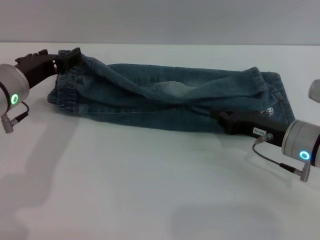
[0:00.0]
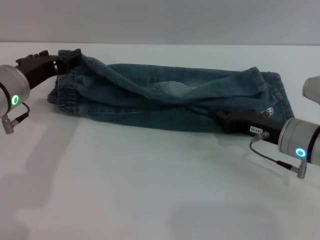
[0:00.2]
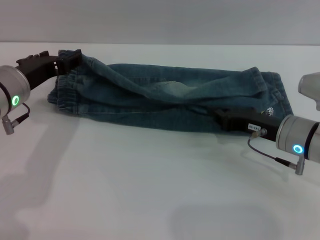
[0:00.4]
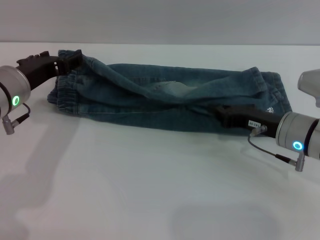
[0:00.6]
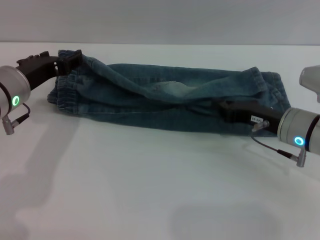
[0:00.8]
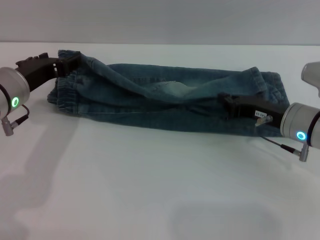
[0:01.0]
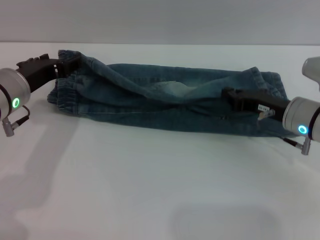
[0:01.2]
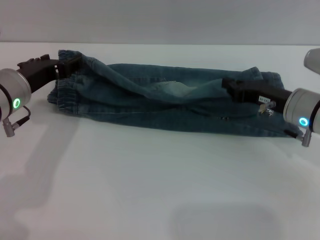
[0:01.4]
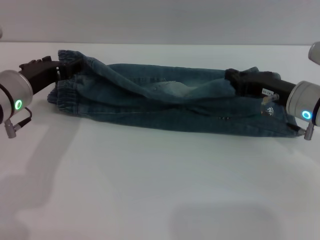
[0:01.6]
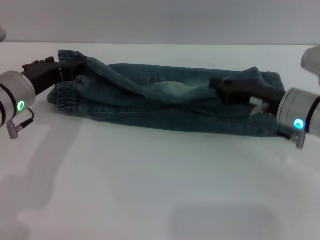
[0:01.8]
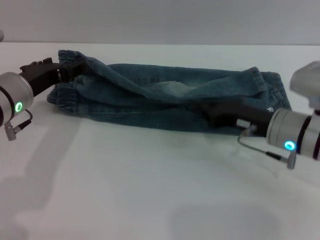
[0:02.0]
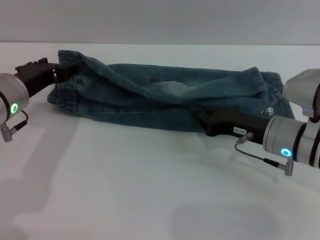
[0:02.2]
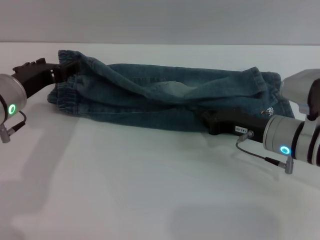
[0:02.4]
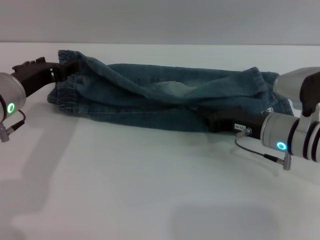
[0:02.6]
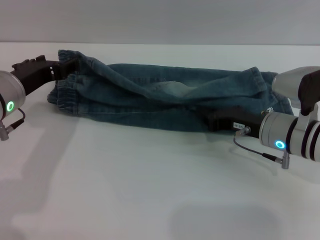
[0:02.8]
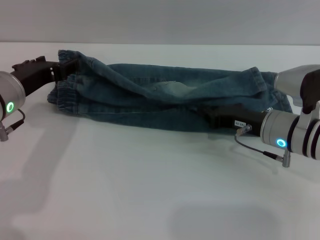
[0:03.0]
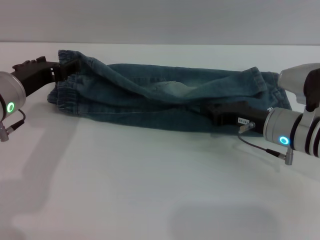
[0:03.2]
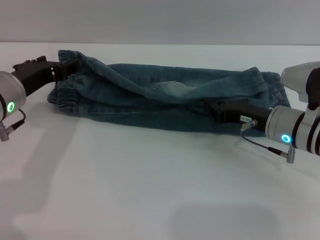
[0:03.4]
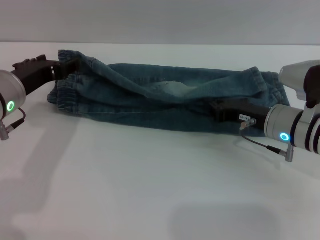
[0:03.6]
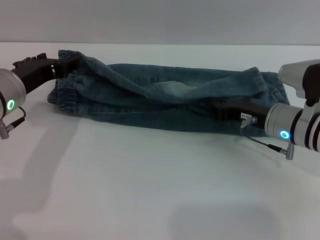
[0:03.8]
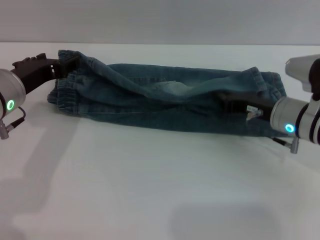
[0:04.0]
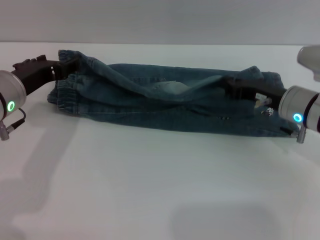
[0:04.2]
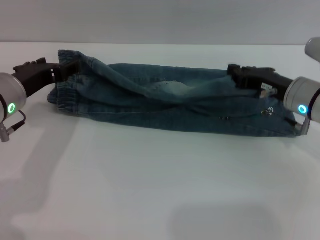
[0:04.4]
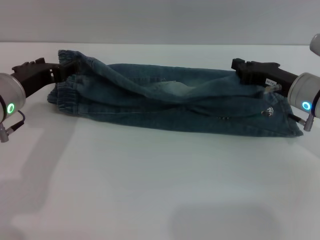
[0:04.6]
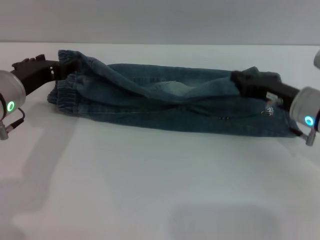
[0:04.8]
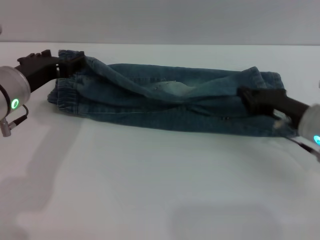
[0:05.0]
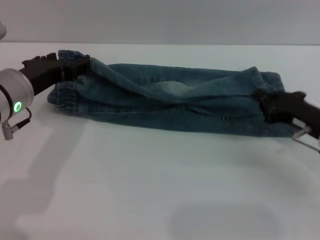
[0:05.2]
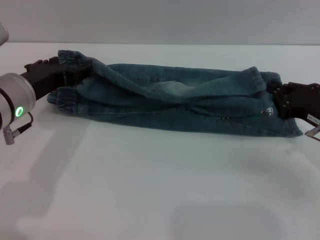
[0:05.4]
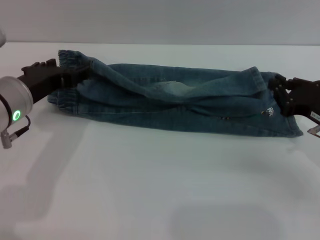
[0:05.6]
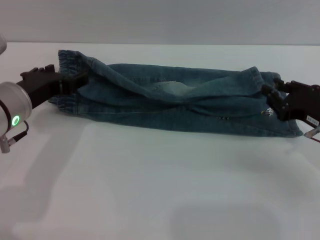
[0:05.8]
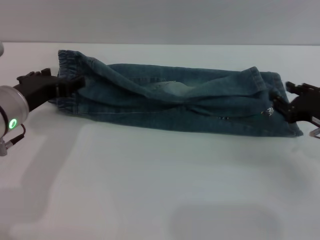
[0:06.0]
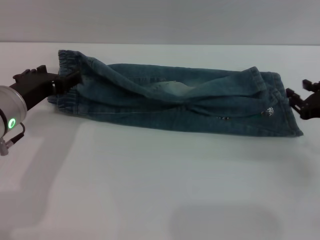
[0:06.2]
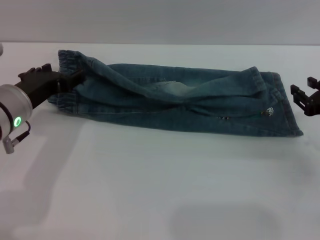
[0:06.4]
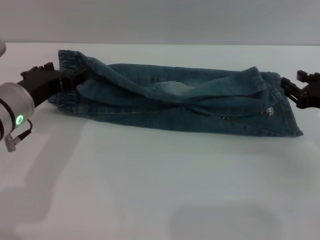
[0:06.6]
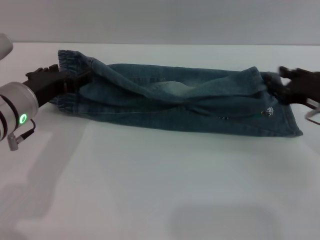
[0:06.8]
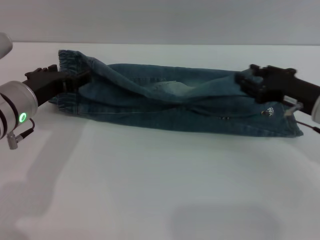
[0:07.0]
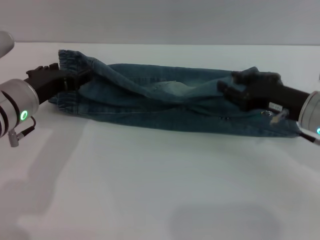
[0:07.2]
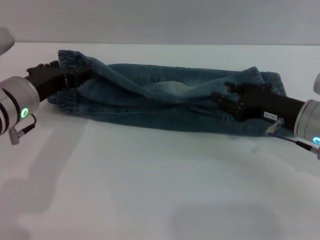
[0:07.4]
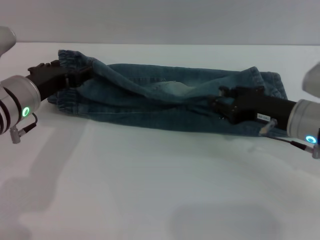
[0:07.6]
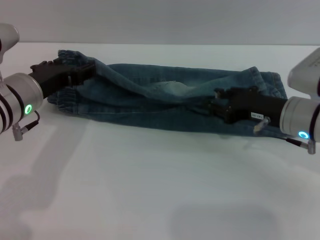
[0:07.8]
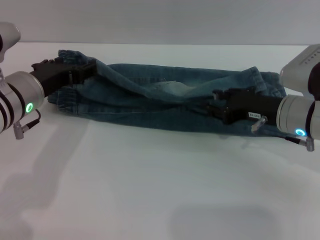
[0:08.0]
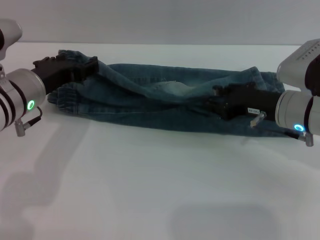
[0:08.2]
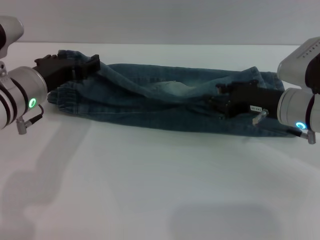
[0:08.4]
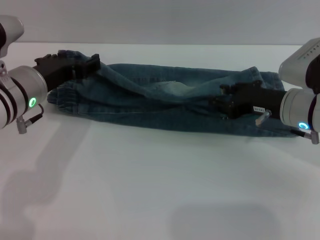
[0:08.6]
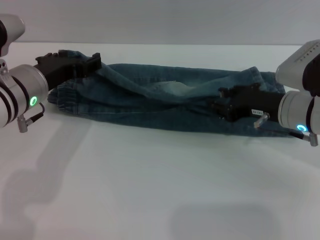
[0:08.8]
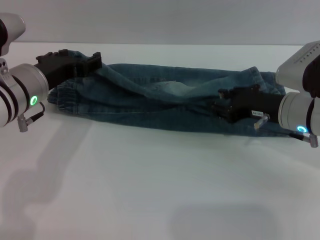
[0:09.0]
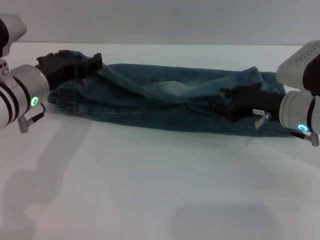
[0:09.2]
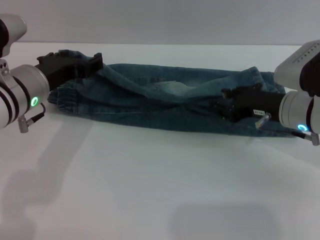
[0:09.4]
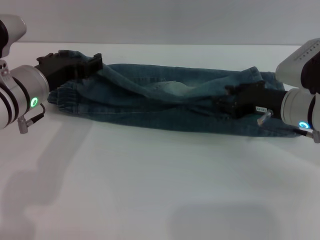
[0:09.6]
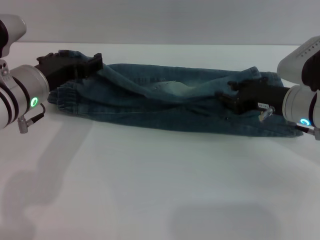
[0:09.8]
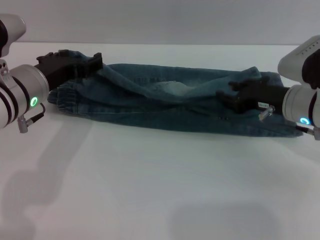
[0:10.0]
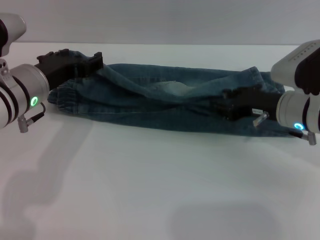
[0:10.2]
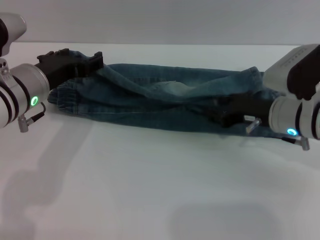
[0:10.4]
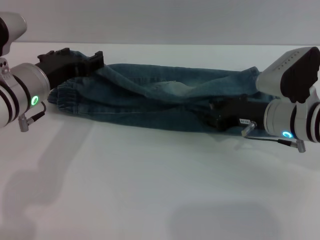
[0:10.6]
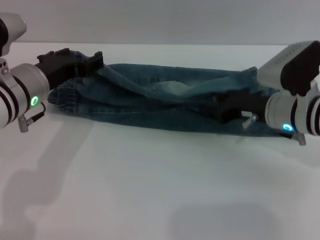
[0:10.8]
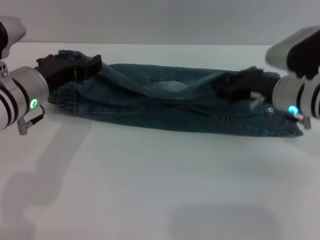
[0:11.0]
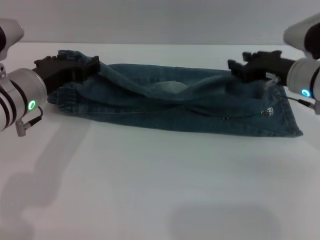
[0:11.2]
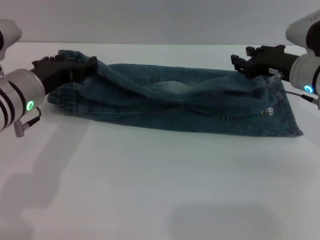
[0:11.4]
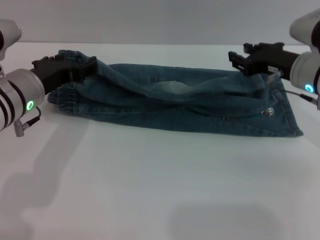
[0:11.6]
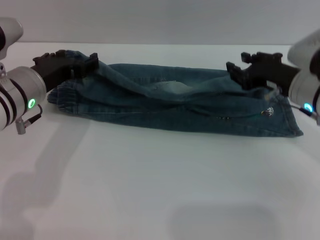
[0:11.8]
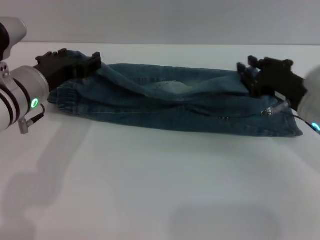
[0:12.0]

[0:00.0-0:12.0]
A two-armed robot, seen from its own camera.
Step, 0:00.0 to 0:06.2: Fold the bottom of the pants upward with both grippers.
0:00.0 to 0:01.6: The right gripper heads forward, covering approximately 5 cm.
0:01.6 to 0:03.0: The right gripper changes place by approximately 5 cm.
0:03.0 to 0:04.4: The right gripper moves some 5 cm.
0:04.4 to 0:06.0: The right gripper moves backward and to the right, roughly 10 cm.
0:06.0 to 0:07.6: The right gripper is displaced to the left by some 5 cm.
0:07.6 to 0:10.4: The grippers make only small movements.

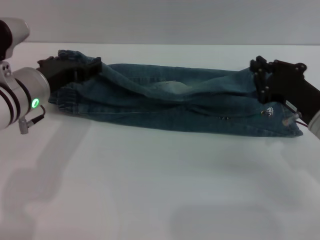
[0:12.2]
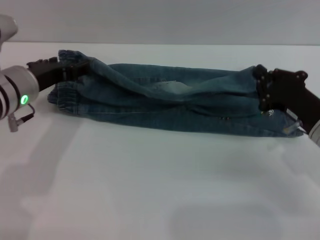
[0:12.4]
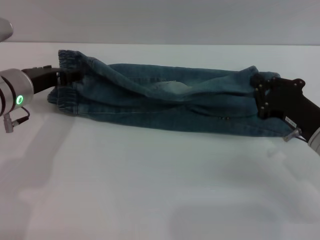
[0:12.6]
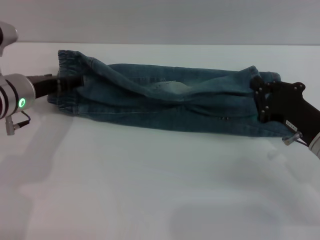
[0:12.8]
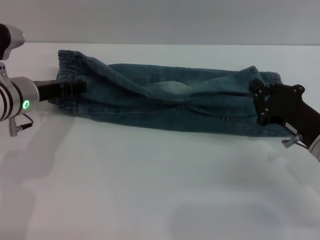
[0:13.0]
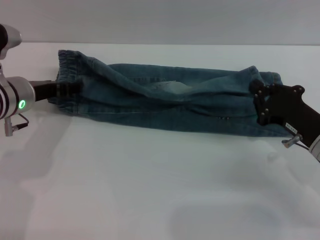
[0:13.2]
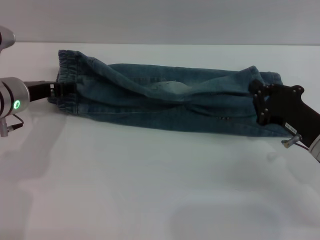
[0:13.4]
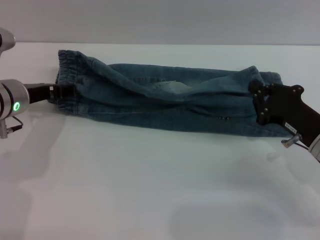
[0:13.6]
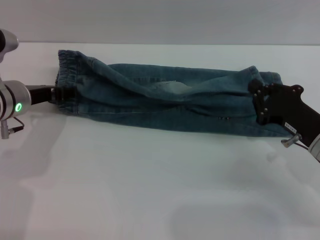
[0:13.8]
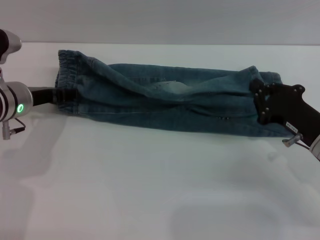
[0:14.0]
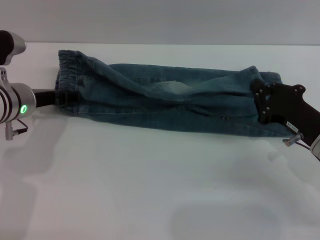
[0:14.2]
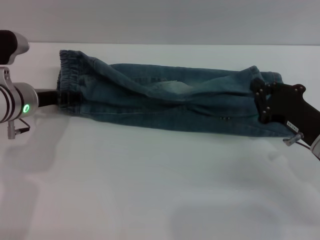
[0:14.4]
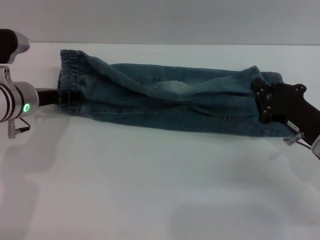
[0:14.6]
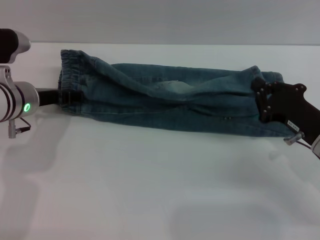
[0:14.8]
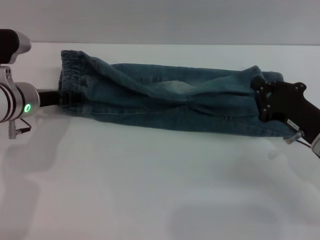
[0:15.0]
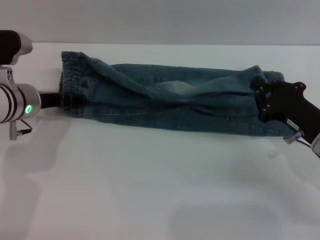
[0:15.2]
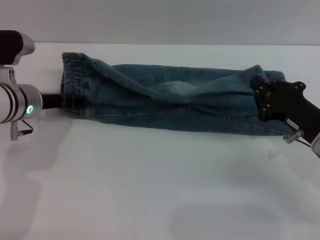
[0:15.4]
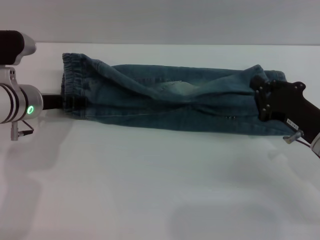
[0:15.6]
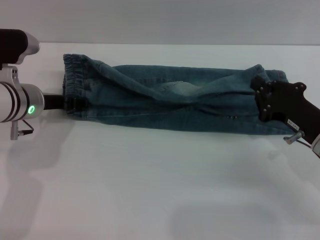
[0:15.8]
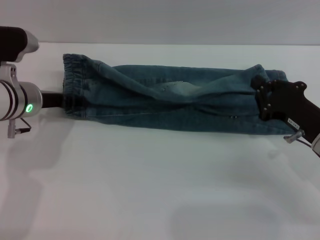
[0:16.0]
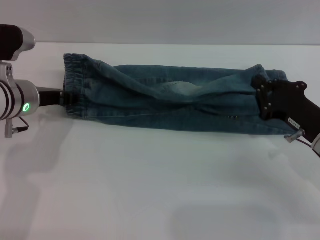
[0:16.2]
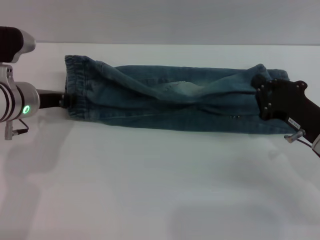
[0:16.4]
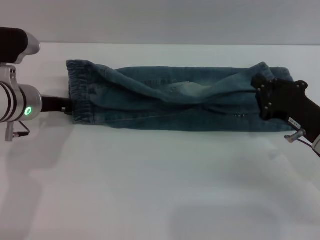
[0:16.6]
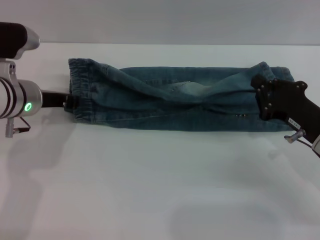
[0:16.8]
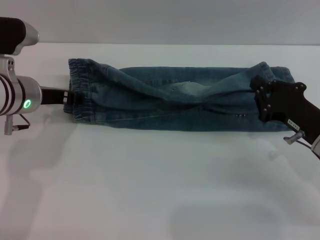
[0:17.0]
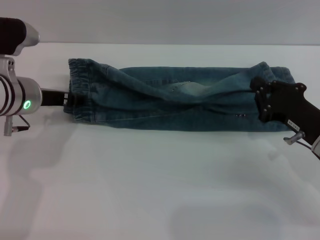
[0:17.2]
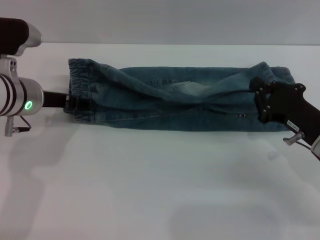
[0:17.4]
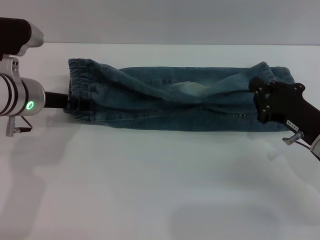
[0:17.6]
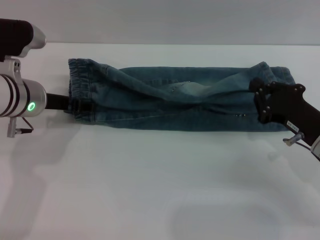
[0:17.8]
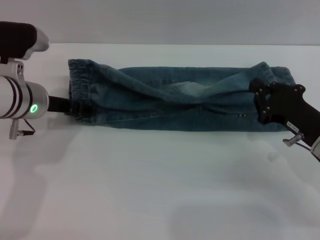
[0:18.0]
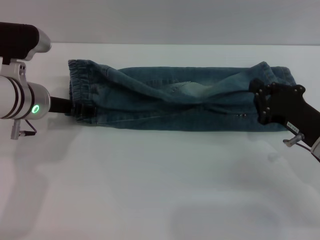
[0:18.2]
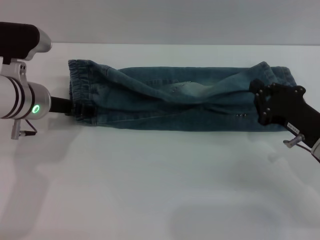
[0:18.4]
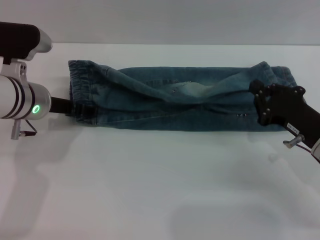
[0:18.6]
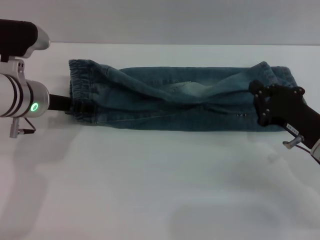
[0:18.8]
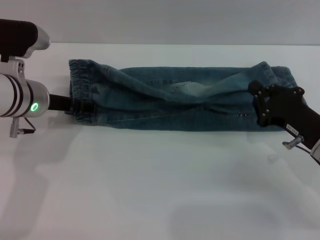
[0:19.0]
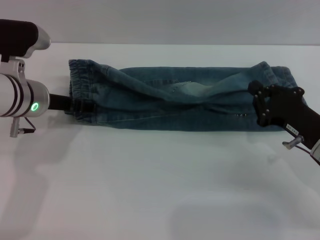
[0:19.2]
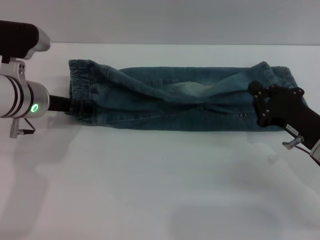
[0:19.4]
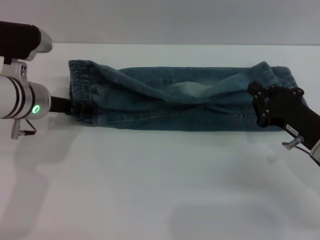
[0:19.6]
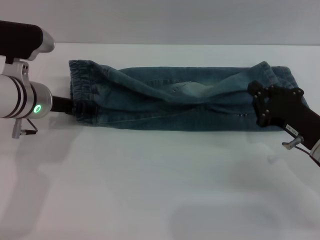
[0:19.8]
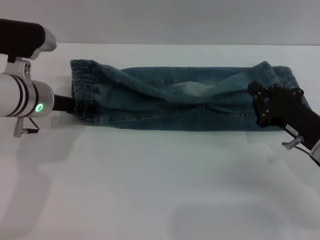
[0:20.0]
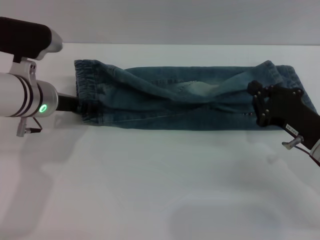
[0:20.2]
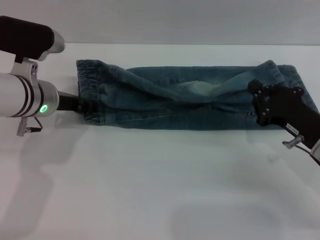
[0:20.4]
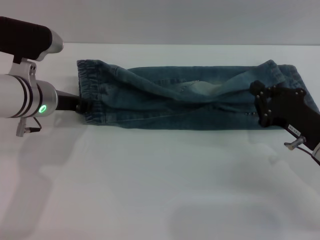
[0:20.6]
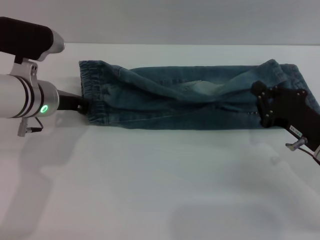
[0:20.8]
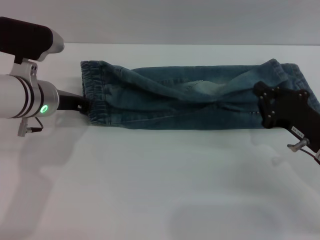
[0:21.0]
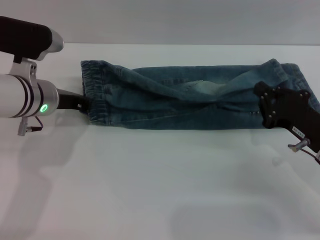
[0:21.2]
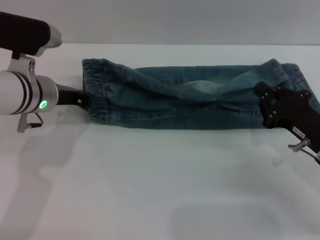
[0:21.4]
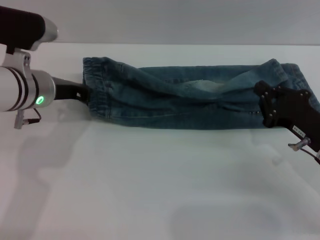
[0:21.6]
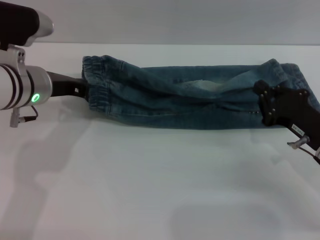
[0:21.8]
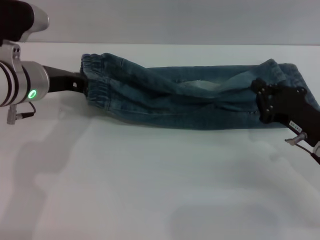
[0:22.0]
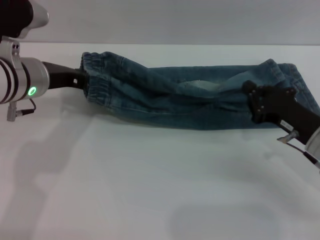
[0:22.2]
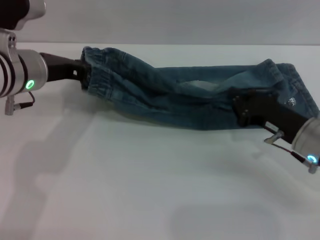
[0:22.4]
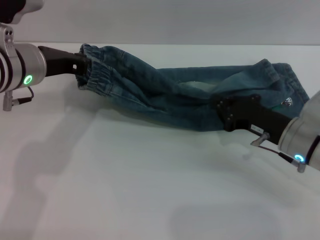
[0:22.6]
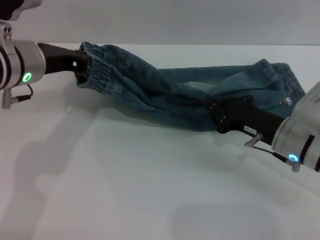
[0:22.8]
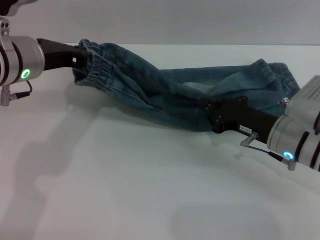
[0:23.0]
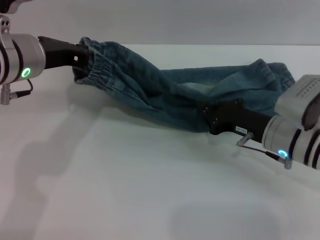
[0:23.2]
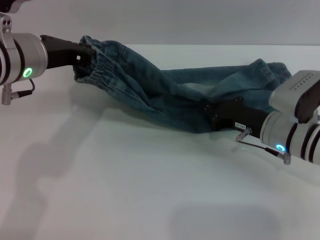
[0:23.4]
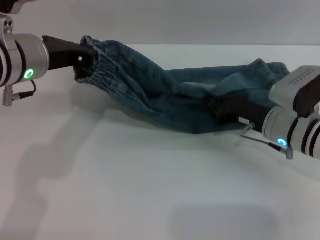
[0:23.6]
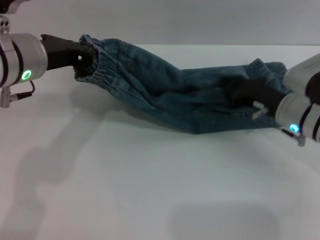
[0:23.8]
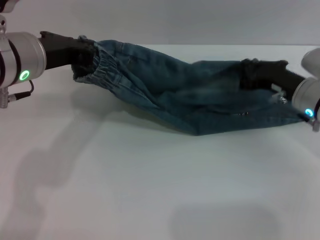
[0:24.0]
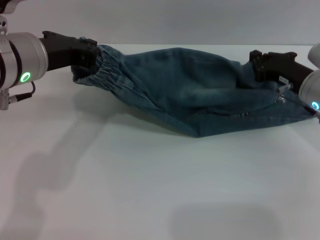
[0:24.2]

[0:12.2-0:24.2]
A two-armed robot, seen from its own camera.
0:12.2 to 0:13.8: The left gripper shifts by approximately 5 cm.
0:13.8 to 0:15.2: The grippers stay close to where they were, moving slightly.
0:15.2 to 0:16.6: The left gripper closes up.
0:16.6 to 0:18.2: The left gripper opens up.
0:18.2 to 0:19.8: The two grippers keep their place.
0:19.8 to 0:21.2: The left gripper closes.
0:21.2 to 0:22.6: The right gripper shifts by roughly 5 cm. Meanwhile the left gripper heads upward, covering about 5 cm.
0:22.6 to 0:24.2: The right gripper heads forward, covering some 5 cm. Meanwhile the left gripper moves about 5 cm.
